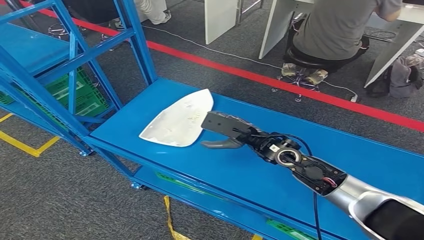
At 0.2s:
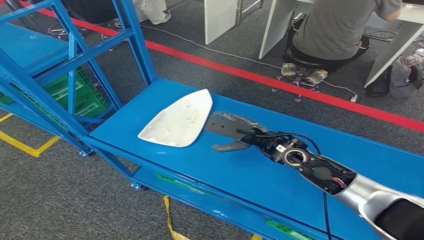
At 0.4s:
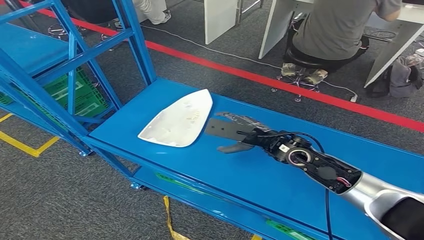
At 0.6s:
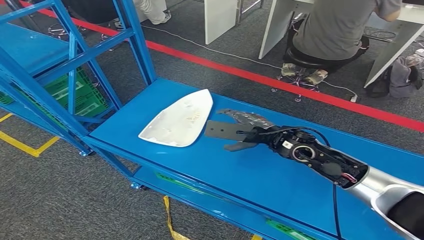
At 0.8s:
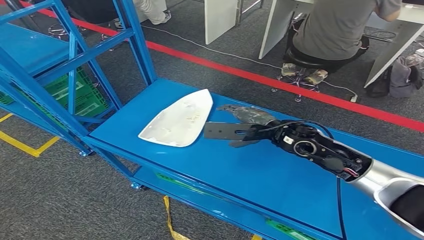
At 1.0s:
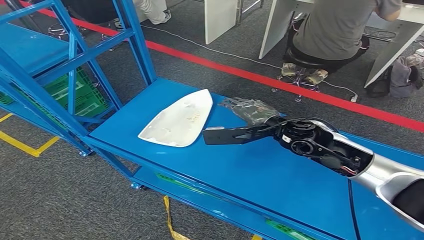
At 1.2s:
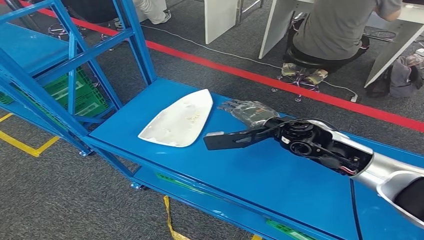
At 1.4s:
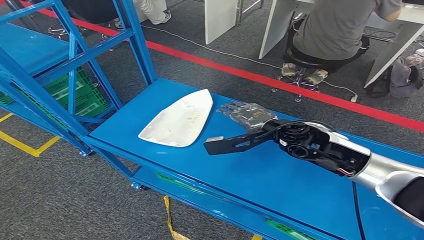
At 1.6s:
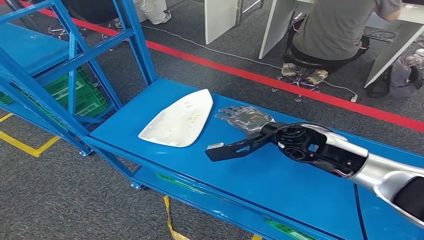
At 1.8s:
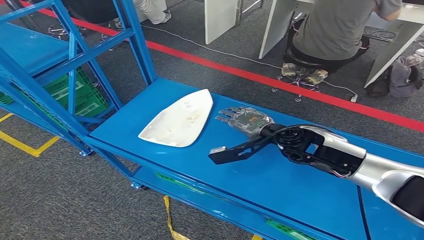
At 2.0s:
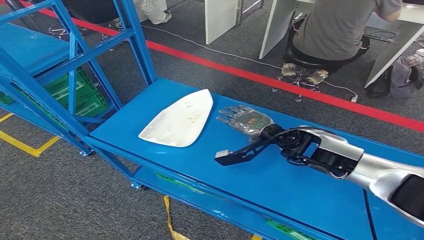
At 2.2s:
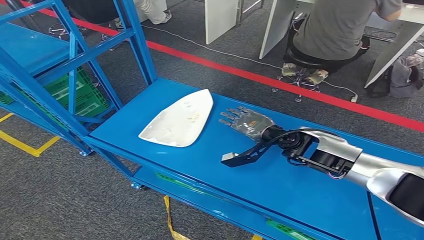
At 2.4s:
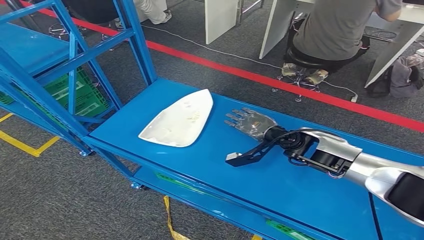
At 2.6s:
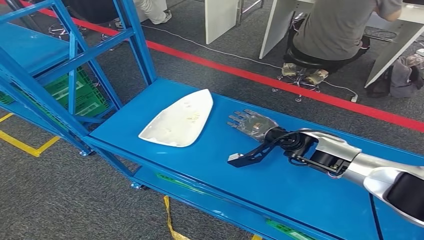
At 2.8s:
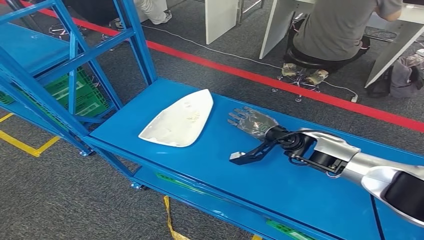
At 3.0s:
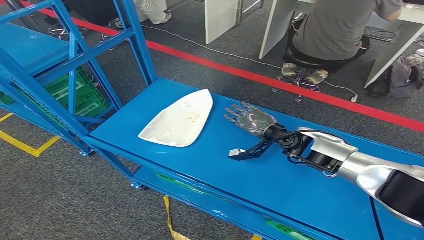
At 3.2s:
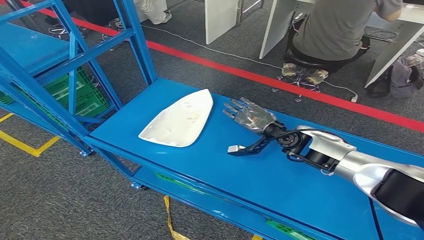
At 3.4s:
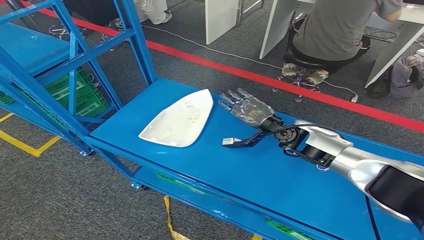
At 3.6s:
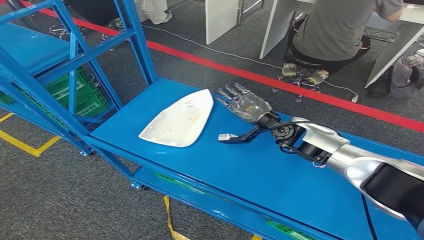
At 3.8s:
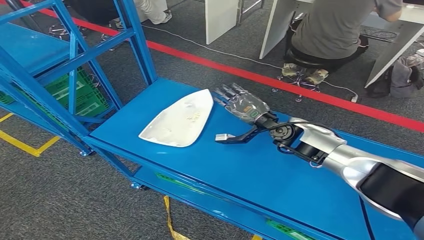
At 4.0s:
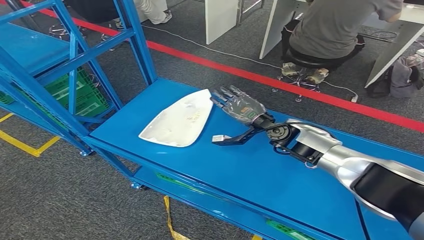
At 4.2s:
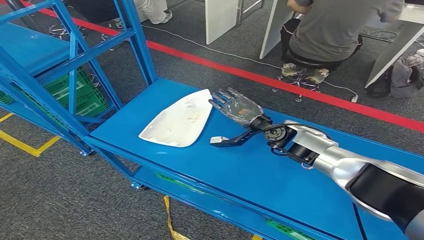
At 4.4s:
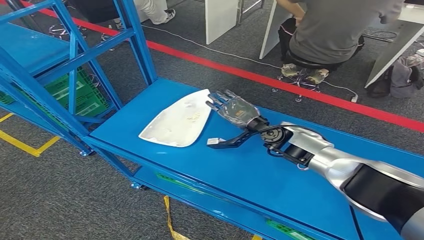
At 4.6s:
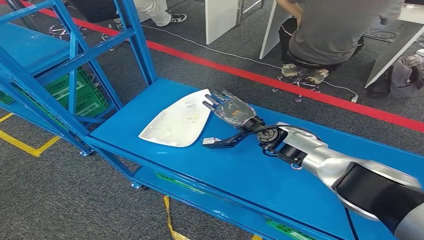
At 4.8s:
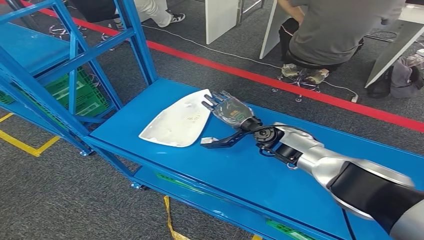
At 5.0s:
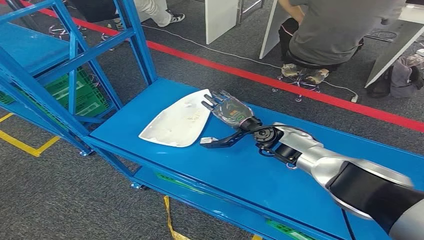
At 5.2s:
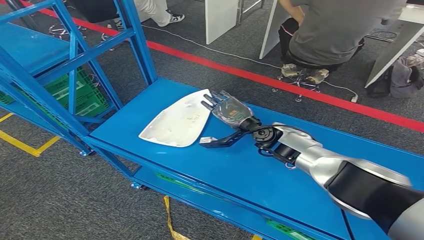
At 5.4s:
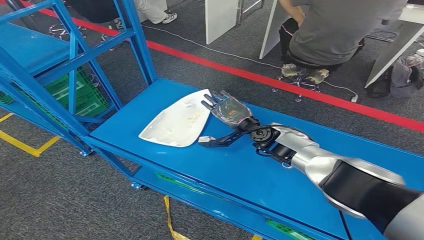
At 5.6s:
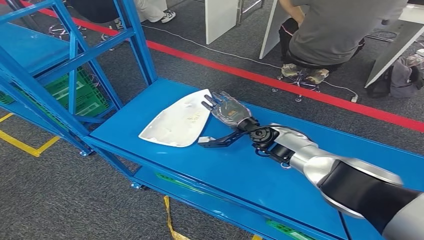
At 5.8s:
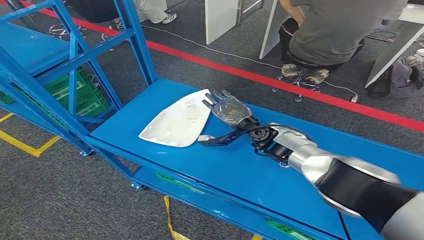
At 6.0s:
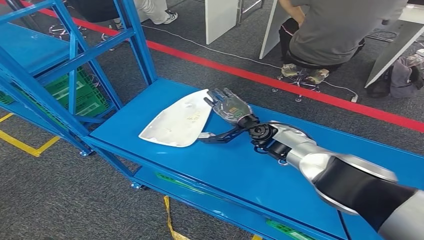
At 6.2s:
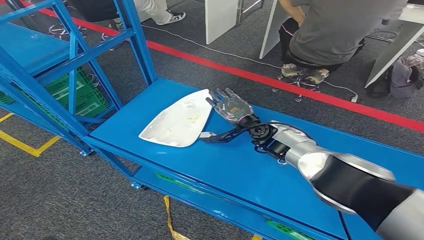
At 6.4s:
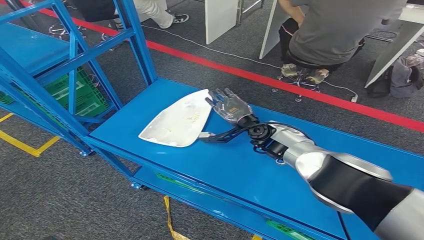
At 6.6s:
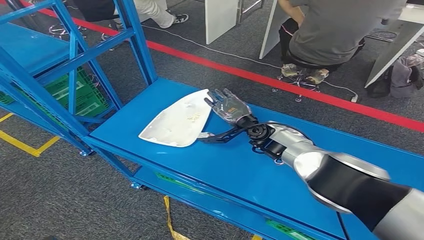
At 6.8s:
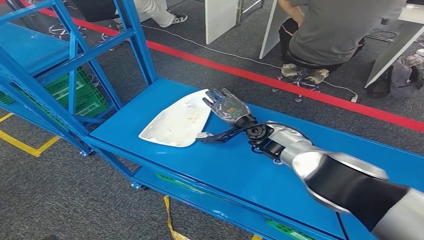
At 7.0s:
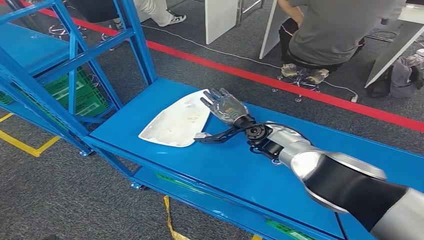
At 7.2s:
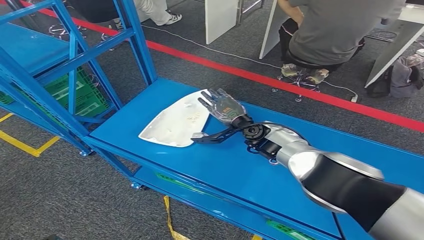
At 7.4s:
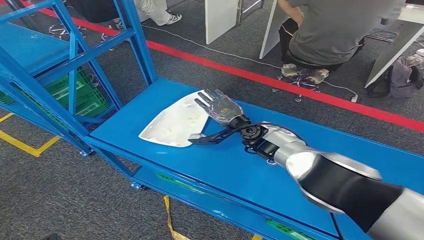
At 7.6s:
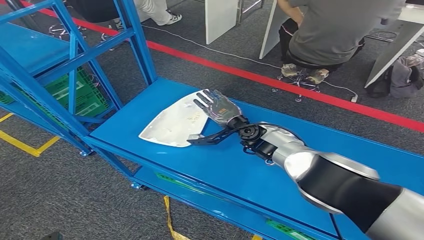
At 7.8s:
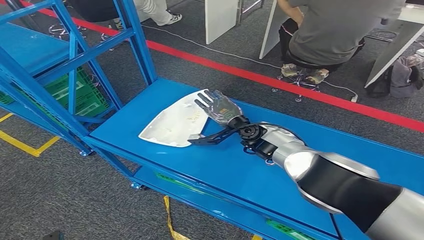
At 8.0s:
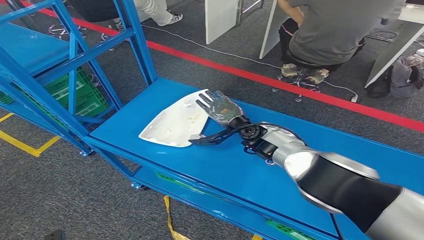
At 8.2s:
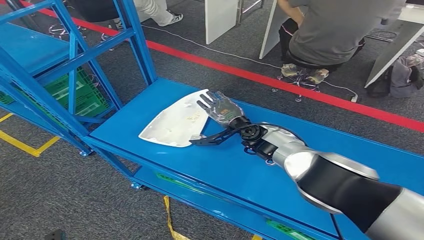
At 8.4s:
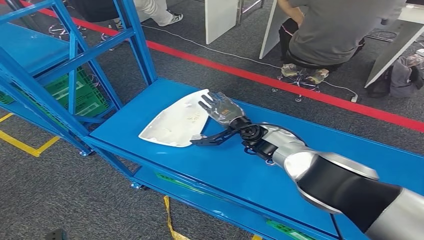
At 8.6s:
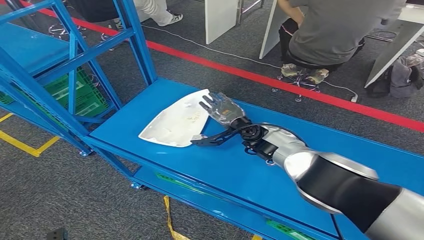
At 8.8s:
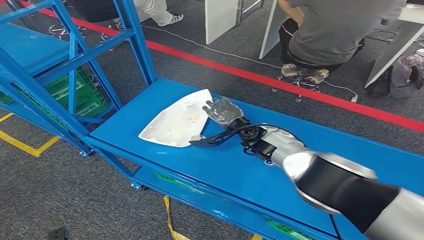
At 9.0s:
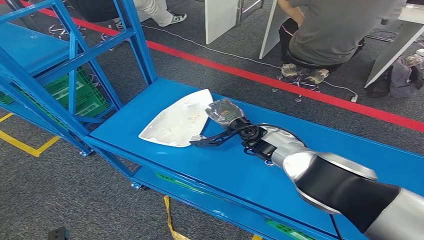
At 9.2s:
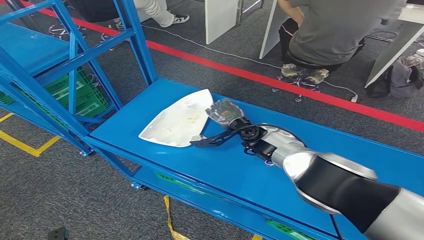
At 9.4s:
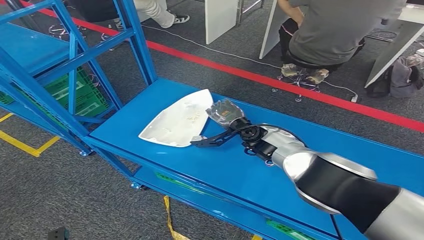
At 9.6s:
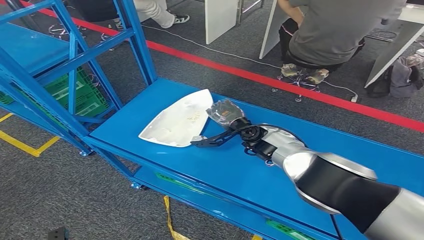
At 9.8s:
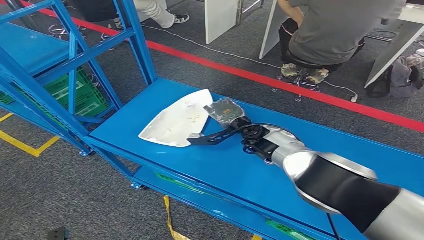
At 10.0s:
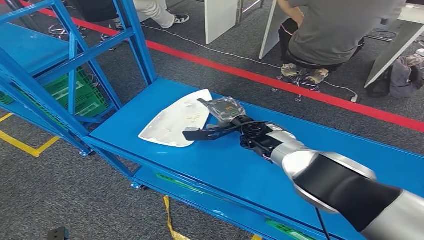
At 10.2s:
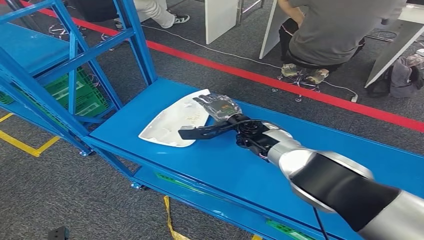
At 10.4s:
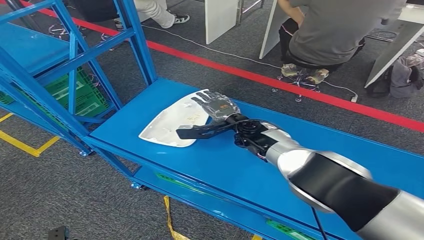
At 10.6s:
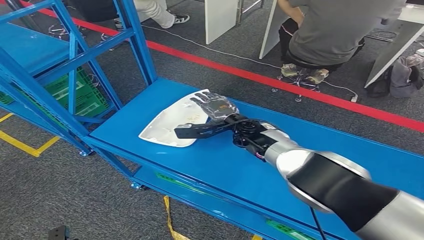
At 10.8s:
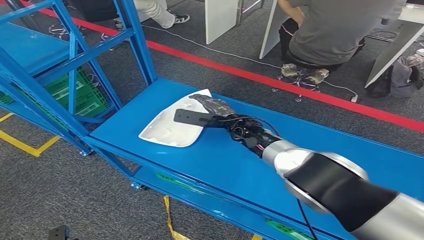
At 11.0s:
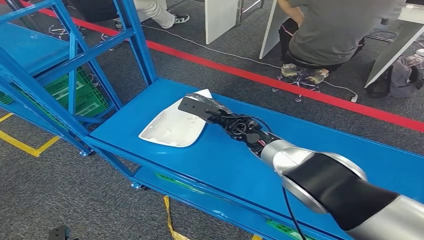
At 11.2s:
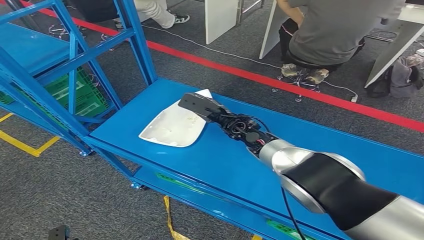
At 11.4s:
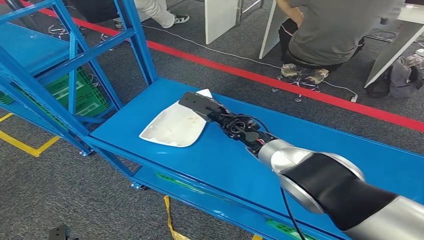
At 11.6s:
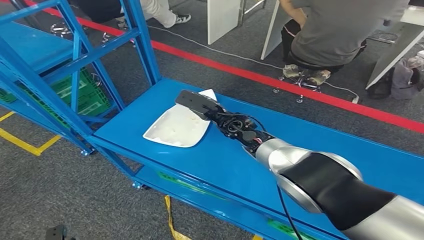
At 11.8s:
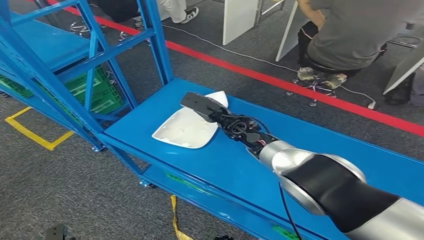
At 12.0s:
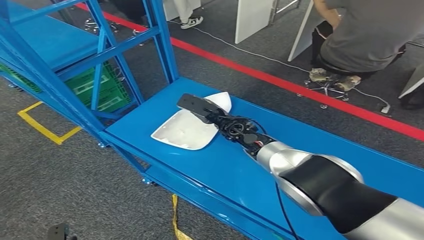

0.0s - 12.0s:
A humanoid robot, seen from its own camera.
1.6s - 3.0s: The right hand heads downward, covering about 5 cm.
3.0s - 4.4s: The right hand changes place by approximately 5 cm.
4.4s - 6.0s: The hands move only a little.
6.0s - 7.6s: The hands stay close to where they were, moving slightly.
7.6s - 9.0s: Both hands stay put.

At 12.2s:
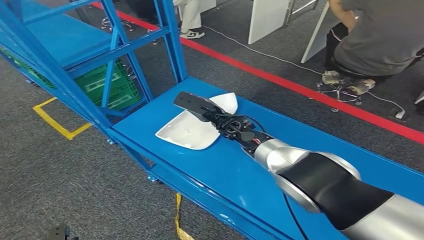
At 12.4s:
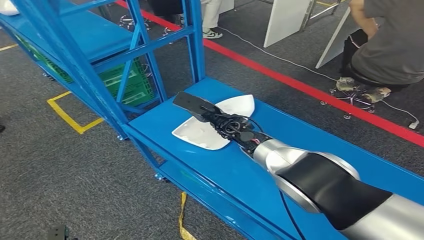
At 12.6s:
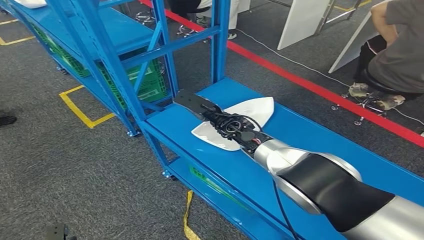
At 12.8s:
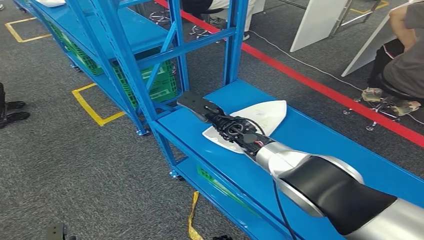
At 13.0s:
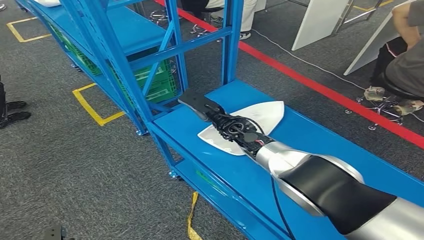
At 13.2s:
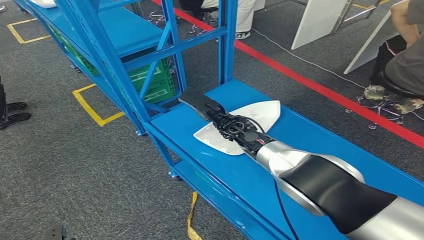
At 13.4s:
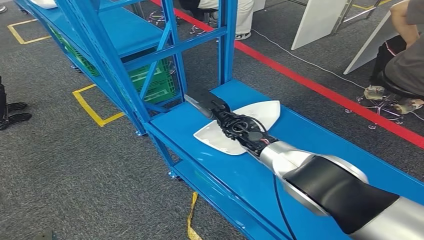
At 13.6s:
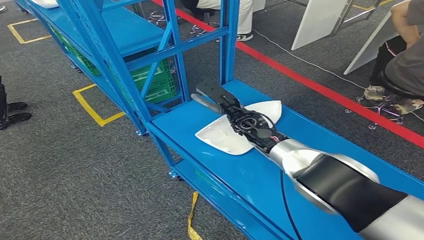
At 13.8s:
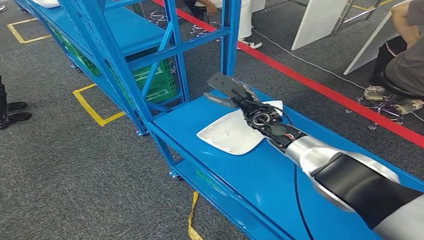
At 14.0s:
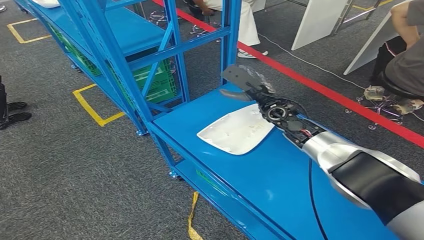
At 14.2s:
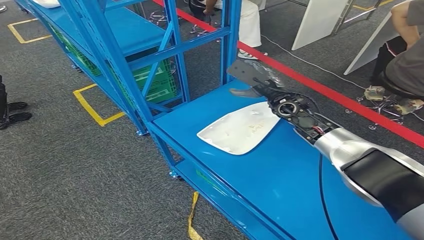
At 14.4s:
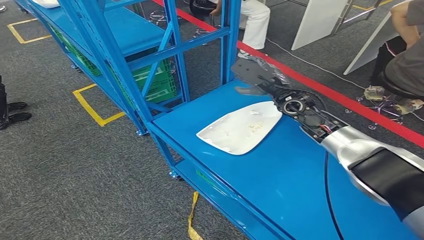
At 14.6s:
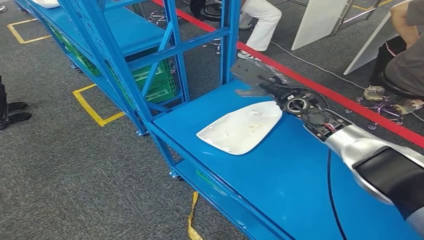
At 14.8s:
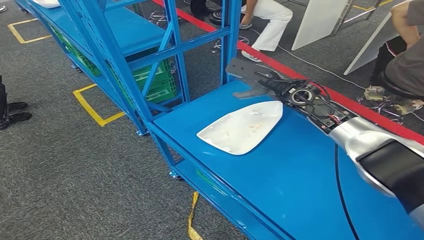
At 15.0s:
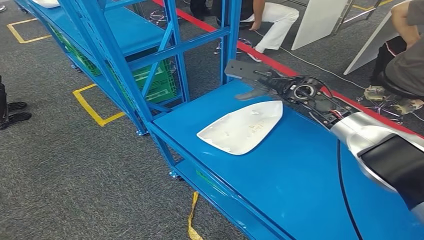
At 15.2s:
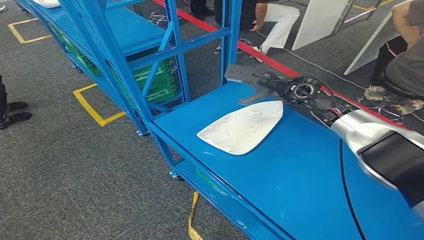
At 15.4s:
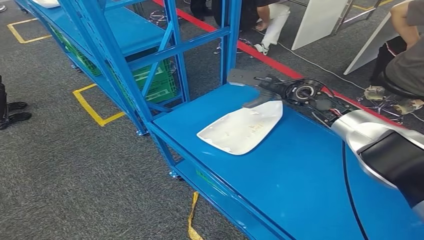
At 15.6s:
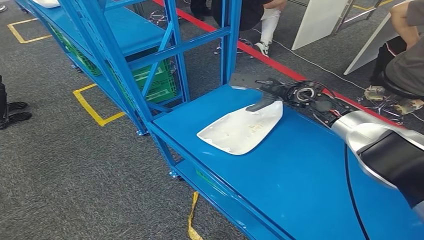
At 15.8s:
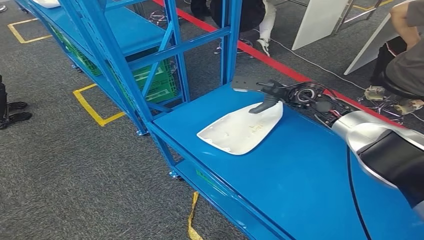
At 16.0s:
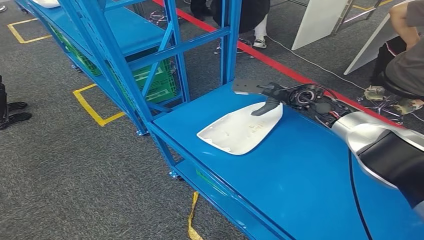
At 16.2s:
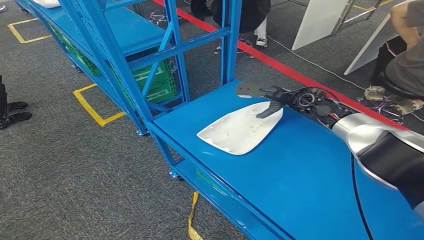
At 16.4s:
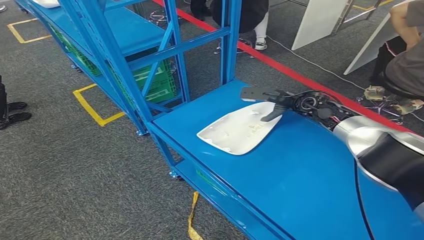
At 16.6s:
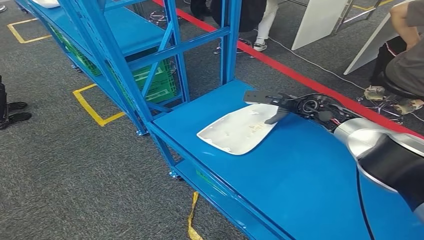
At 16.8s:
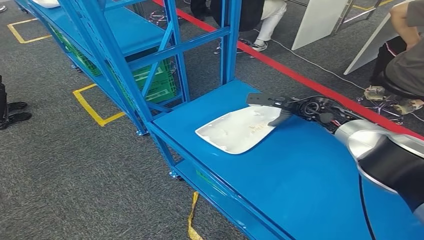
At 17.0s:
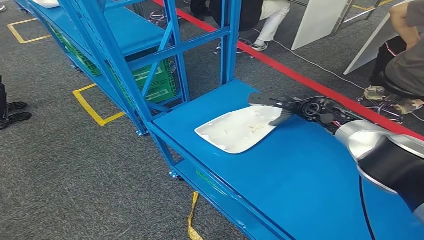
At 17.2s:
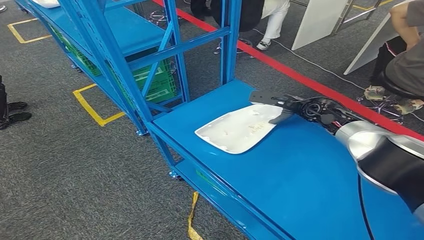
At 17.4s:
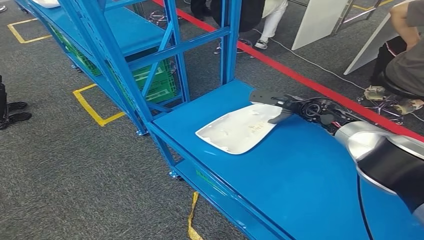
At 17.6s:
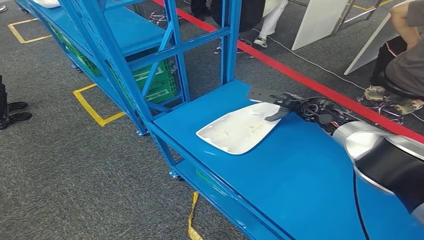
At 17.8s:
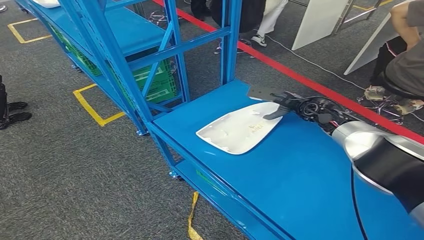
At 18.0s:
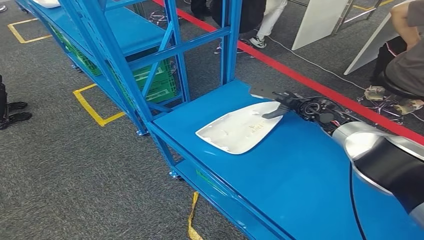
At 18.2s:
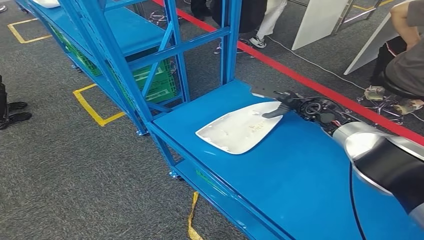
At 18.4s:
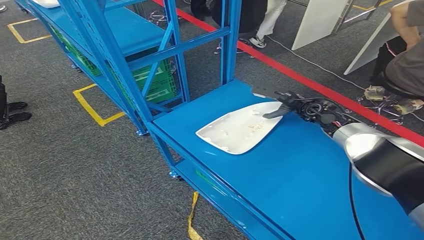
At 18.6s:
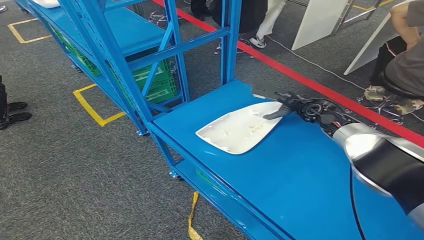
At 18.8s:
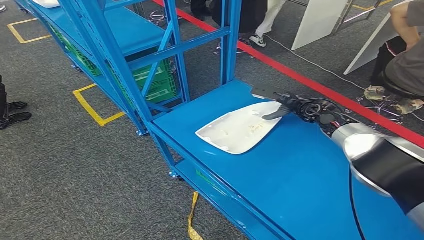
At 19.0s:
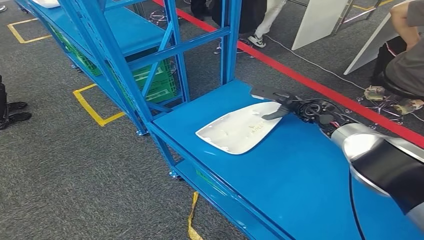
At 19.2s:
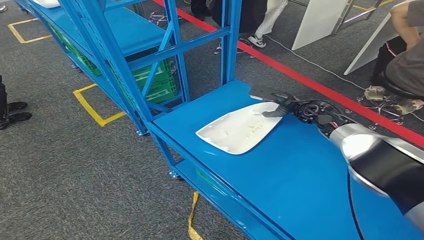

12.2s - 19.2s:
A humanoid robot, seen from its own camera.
13.6s - 15.0s: The left hand moves roughly 5 cm, while the right hand moves to the right and upward, approximately 15 cm.
15.0s - 16.4s: The right hand moves downward, approximately 5 cm.
16.4s - 19.2s: The hands move only a little.
